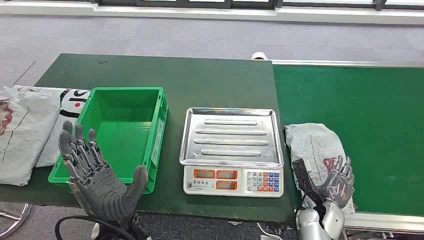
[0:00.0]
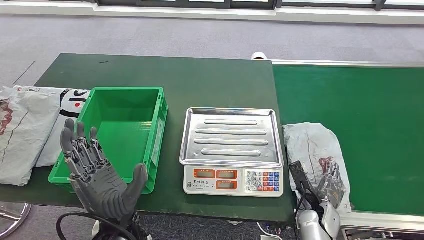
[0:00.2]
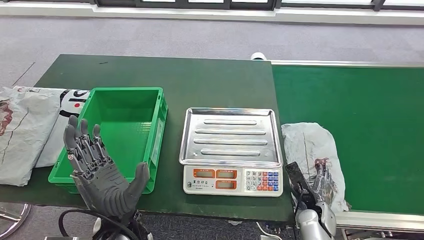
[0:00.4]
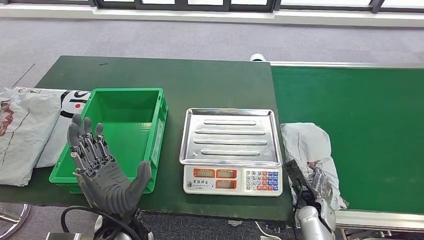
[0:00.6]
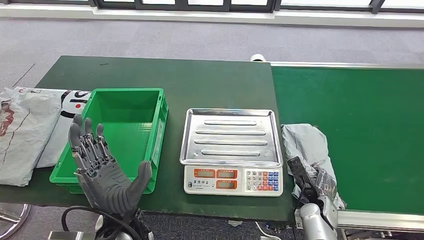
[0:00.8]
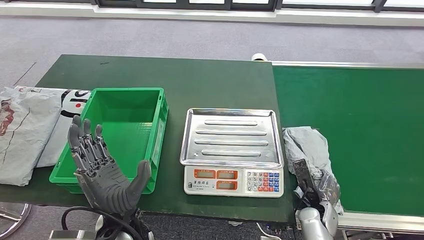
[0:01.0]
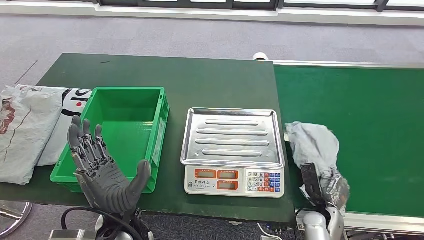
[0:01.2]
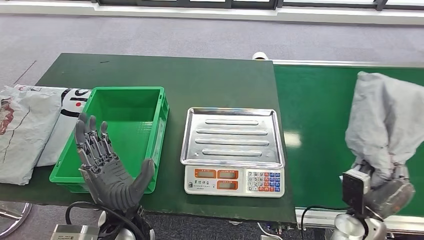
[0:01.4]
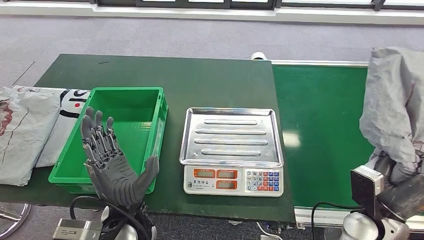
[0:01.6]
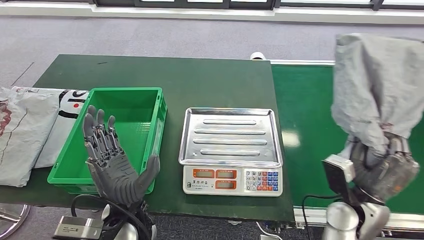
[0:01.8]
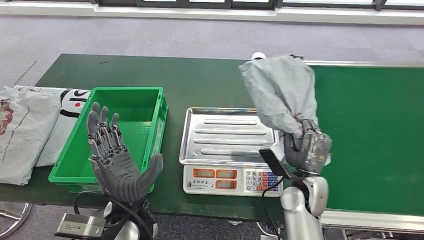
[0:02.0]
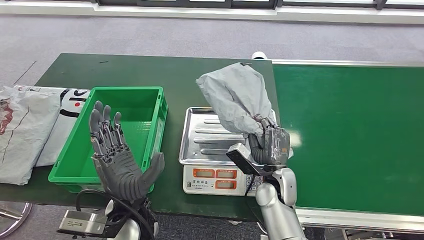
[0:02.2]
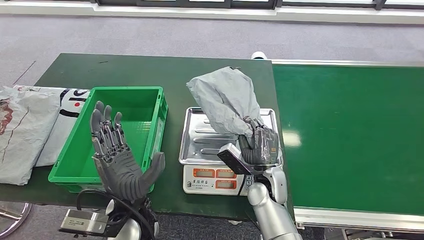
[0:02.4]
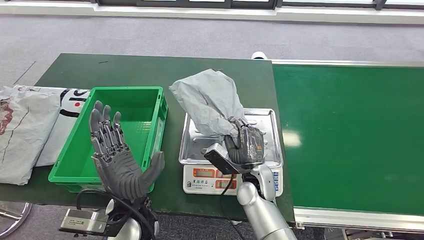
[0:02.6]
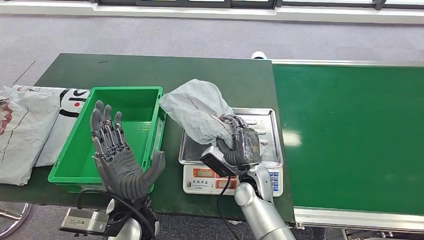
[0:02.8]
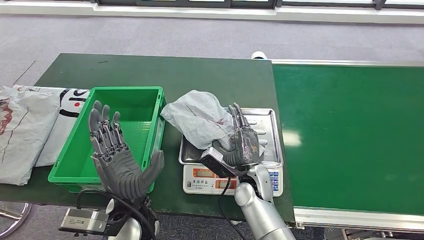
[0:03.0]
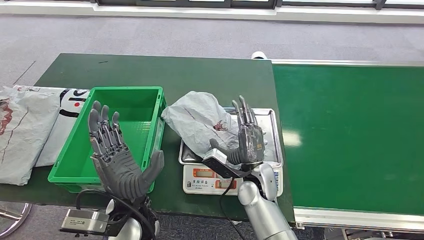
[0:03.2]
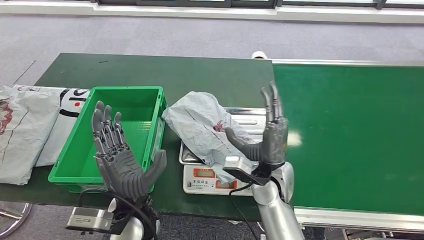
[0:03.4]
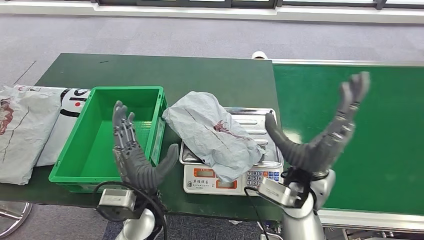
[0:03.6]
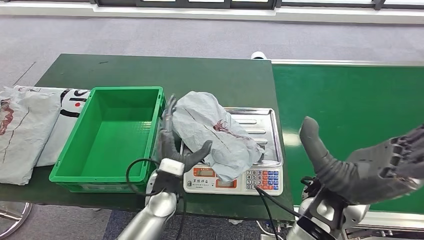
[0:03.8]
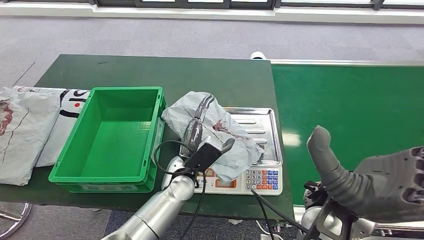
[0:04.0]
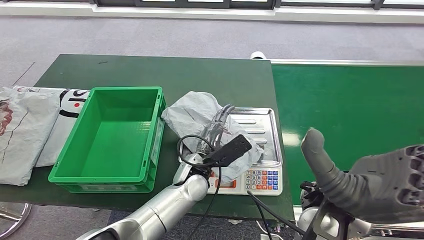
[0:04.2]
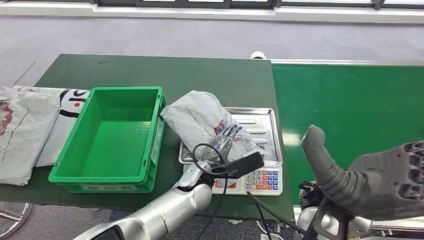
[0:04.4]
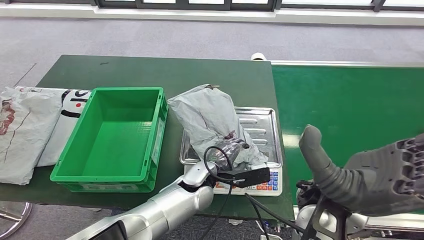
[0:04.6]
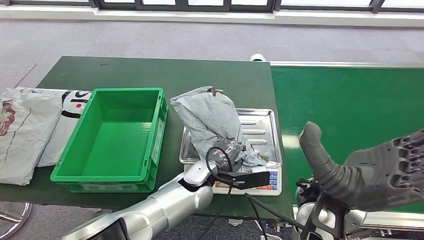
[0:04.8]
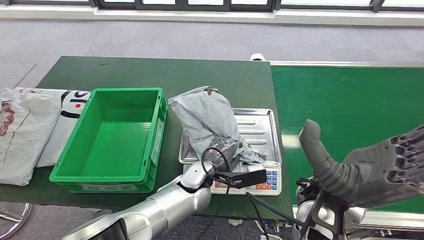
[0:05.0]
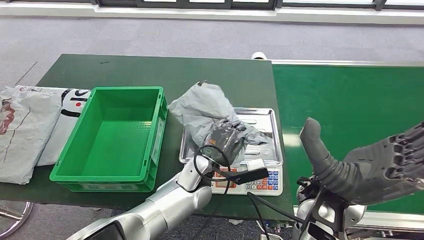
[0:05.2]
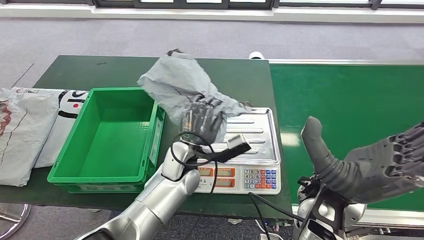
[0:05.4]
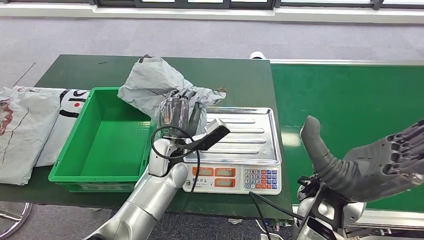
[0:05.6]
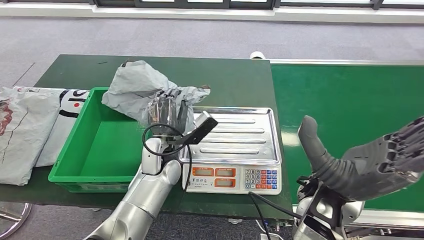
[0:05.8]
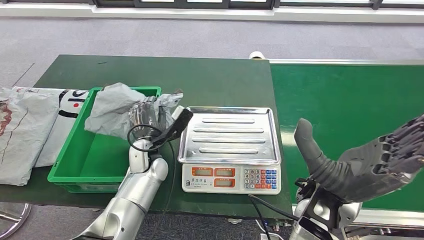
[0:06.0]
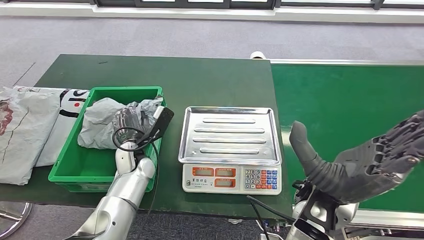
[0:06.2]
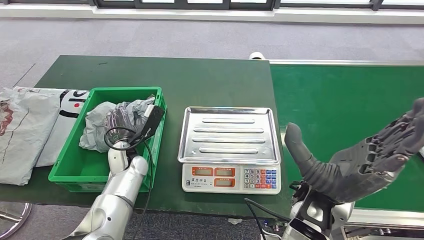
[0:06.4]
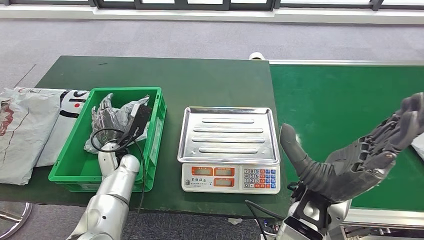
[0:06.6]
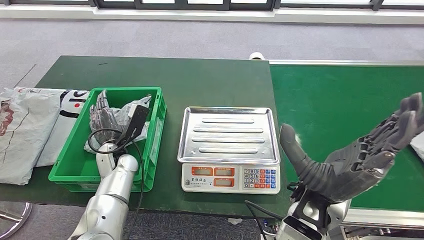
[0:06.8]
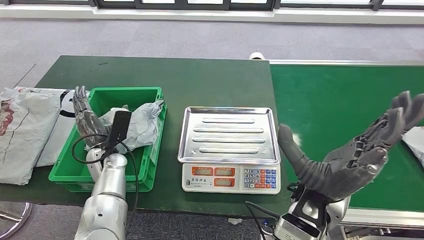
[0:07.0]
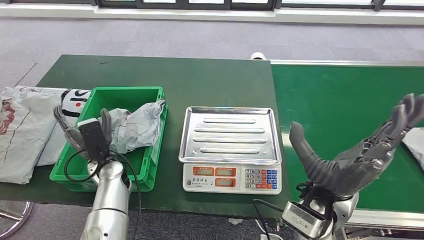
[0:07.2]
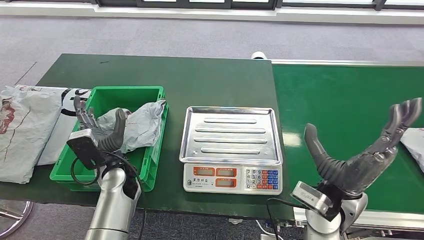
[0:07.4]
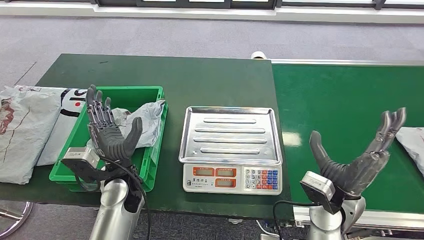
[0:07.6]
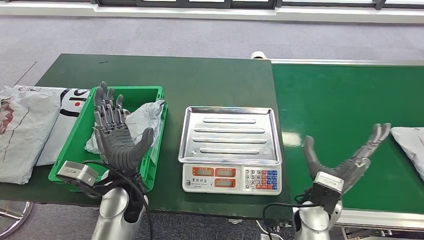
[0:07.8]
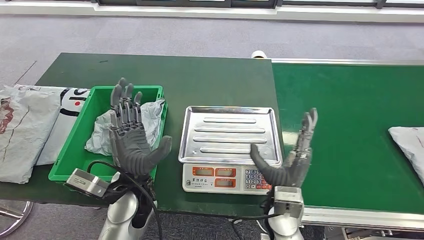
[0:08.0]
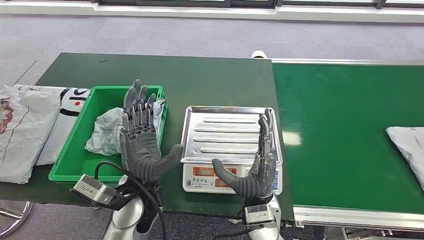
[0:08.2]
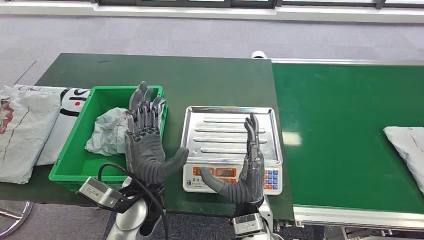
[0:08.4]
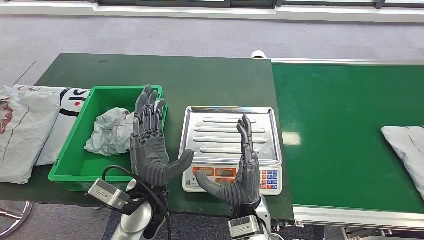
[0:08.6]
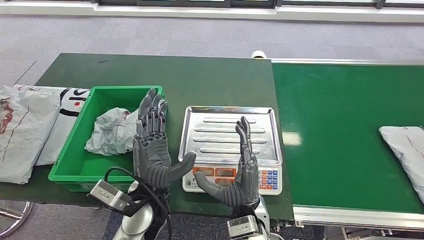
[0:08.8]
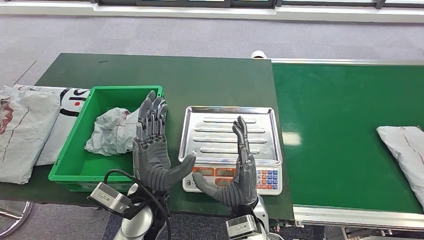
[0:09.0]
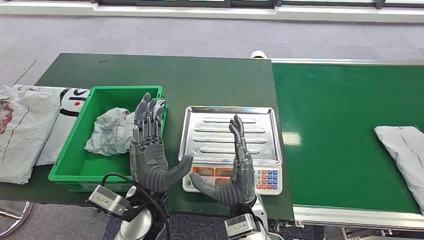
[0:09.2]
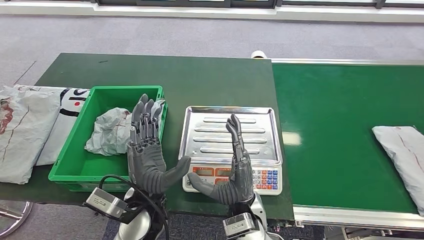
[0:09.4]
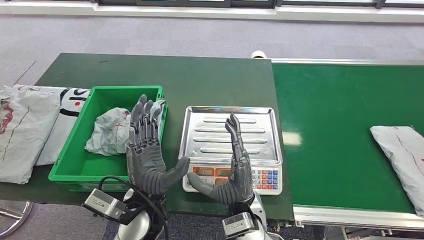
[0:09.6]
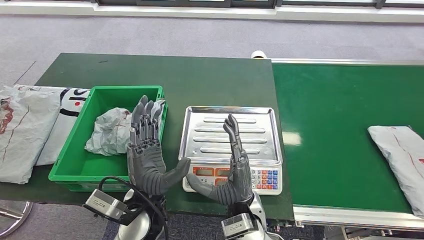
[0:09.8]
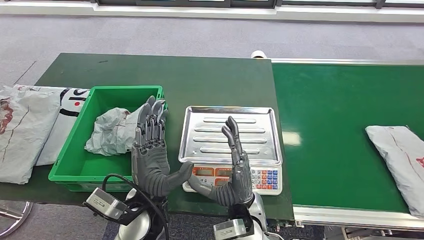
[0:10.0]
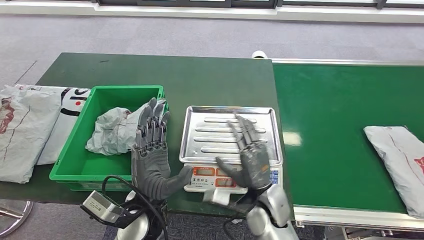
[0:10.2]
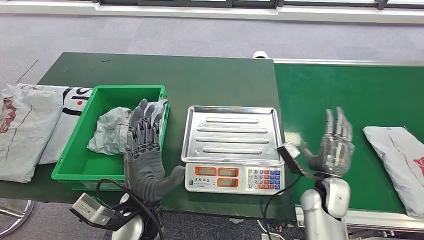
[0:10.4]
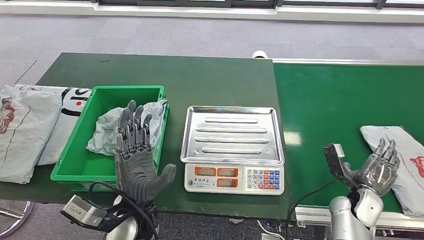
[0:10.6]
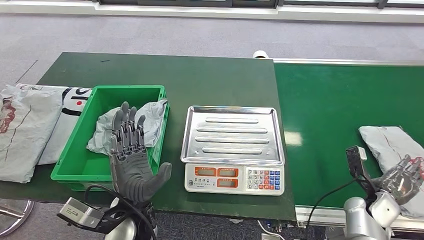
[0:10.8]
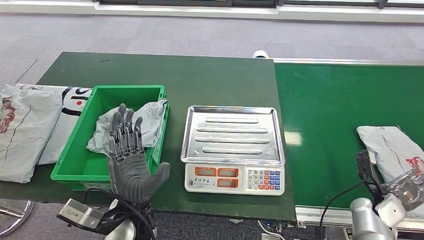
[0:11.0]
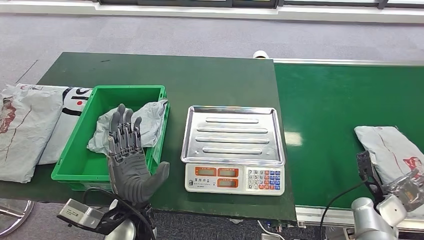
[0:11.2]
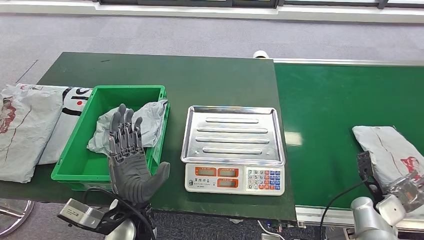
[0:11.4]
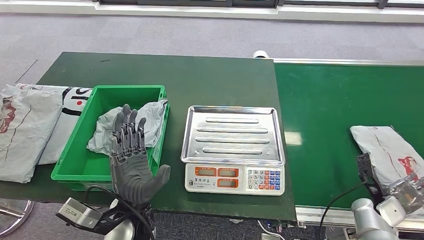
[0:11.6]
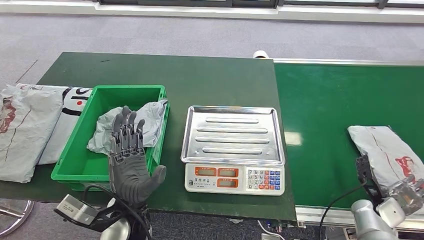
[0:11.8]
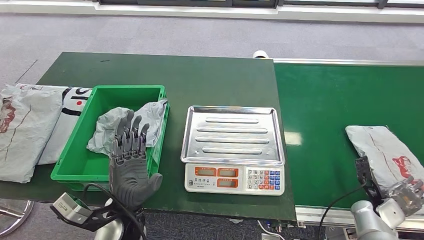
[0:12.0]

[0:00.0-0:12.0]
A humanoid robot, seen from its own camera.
Step, 0.0 to 1.4 s: Take the parcel off the conveyor belt.
Step, 1.6 to 4.0 s: Place the parcel onto the inbound machine.
Step, 4.2 to 5.4 s: Pick up the parcel from the inbound machine.
Step, 5.8 to 7.6 s: Put the parcel inside the courier box.
3.0 to 4.4 s: The left hand is displaced to the right, forward and downward by roughly 15 cm. Meanwhile the right hand travels upward by approximately 20 cm.
10.4 to 12.0 s: The right hand moves to the right and downward, some 20 cm.

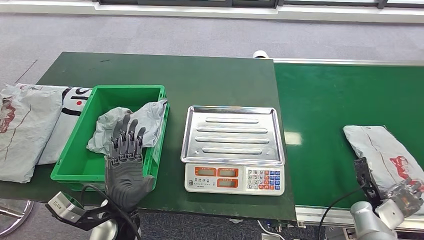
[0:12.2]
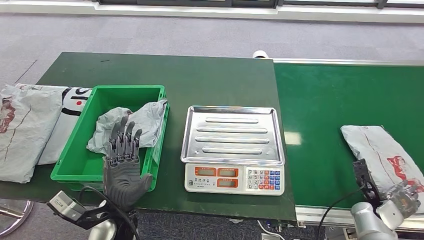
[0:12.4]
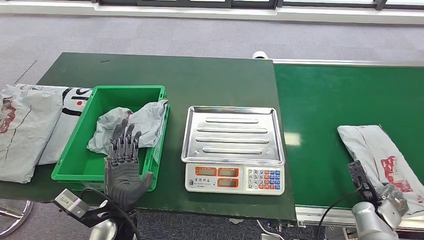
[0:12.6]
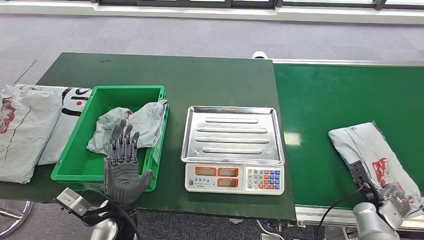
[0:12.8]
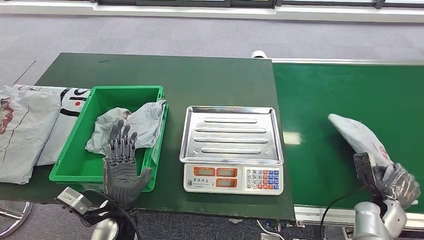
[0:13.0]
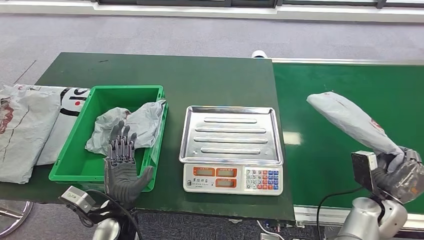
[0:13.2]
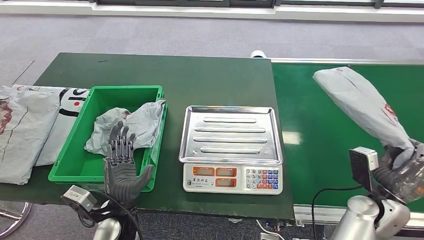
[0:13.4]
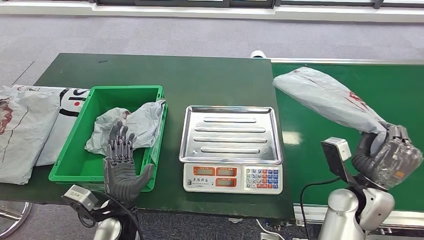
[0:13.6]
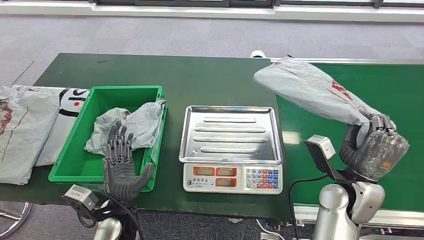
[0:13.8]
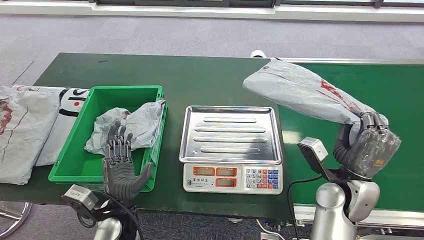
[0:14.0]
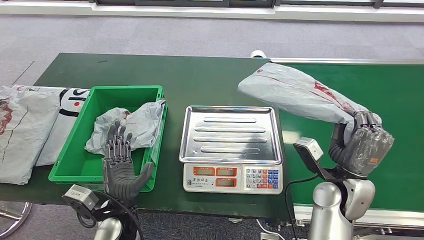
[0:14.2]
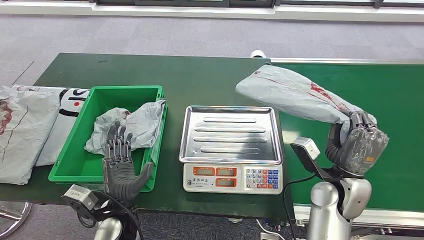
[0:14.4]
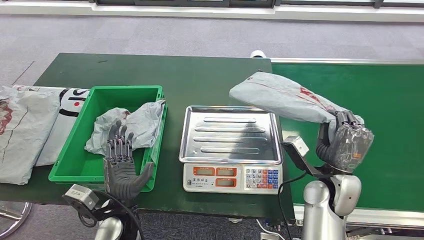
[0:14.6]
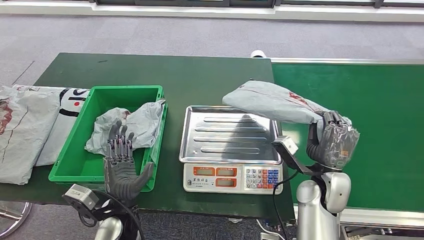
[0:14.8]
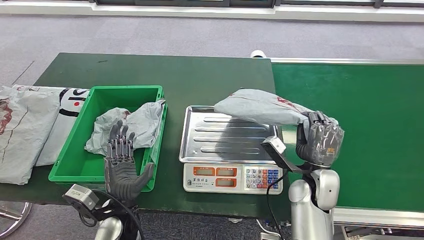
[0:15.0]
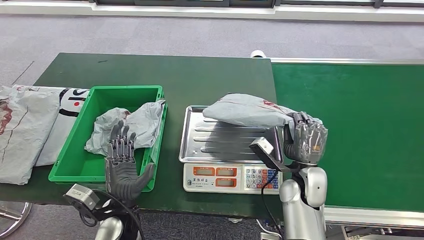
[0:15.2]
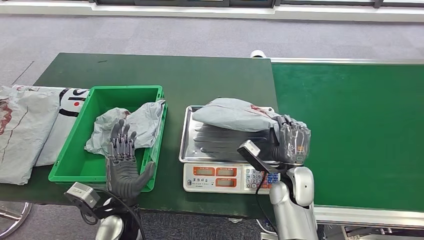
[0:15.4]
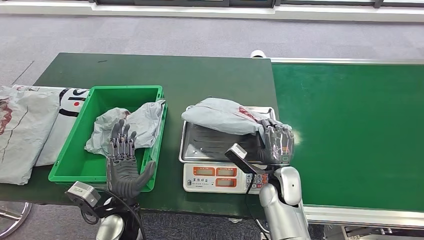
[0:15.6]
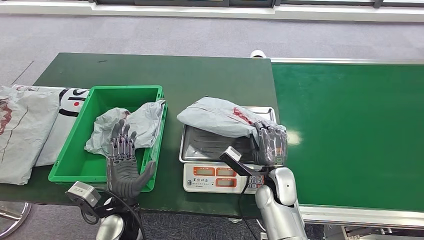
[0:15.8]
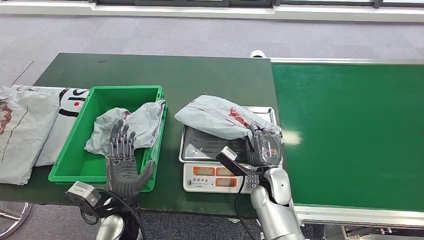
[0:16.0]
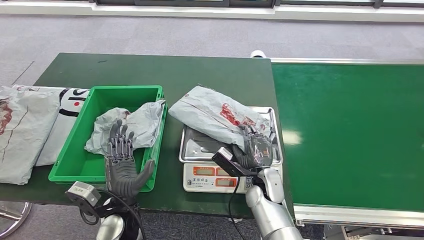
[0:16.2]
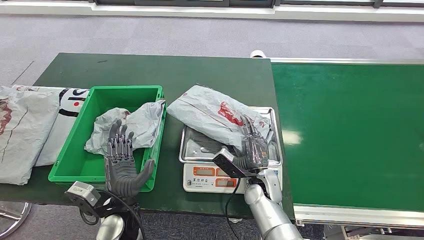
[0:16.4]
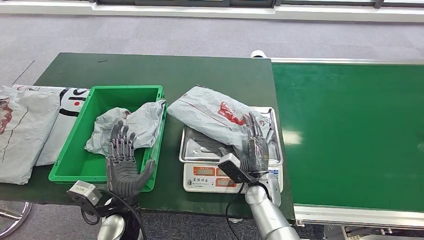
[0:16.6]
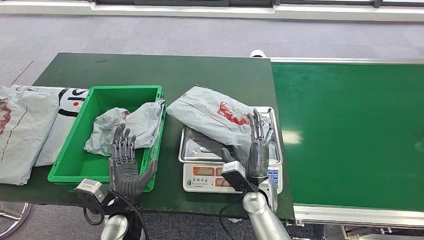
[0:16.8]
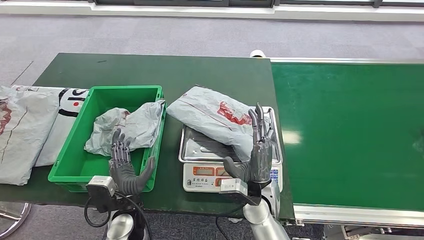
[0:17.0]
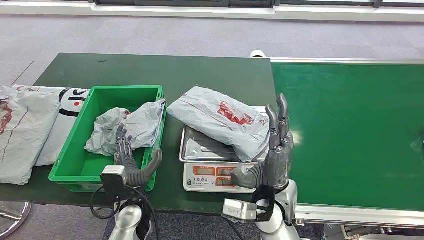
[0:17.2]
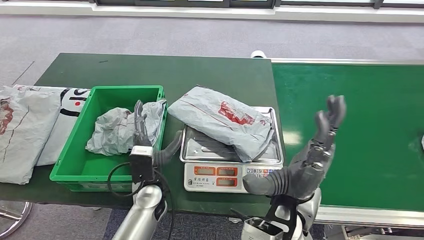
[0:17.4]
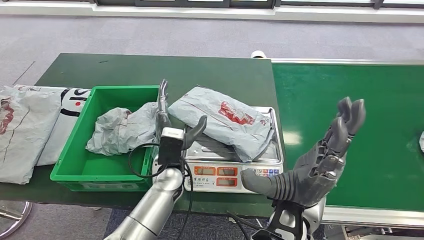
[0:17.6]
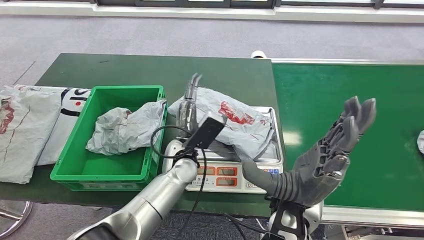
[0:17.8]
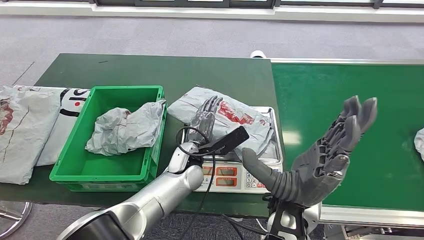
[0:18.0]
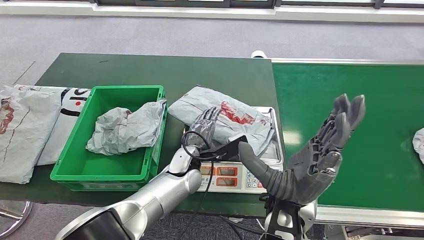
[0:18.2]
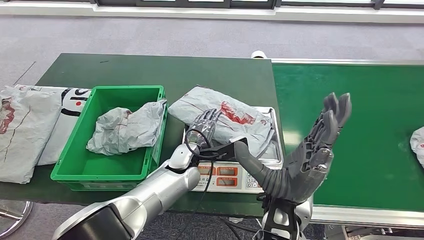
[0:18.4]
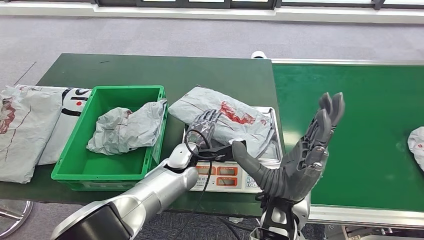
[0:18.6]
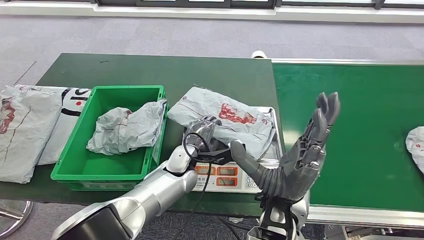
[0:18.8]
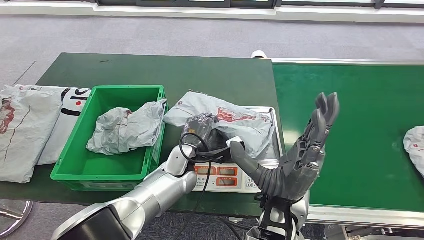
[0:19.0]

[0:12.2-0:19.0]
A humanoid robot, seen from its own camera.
Step, 12.2 to 13.2 s: Pick up the parcel from the conveyor belt.
Step, 13.4 to 18.2 s: Place the parcel onto the inbound machine.
13.6 to 15.0 s: The right hand goes some 10 cm to the left.
15.0 to 16.2 s: The right hand moves to the left and downward, approximately 10 cm.
16.2 to 17.6 s: The right hand is displaced upward by roughly 20 cm. The left hand travels forward and to the right by about 15 cm.
